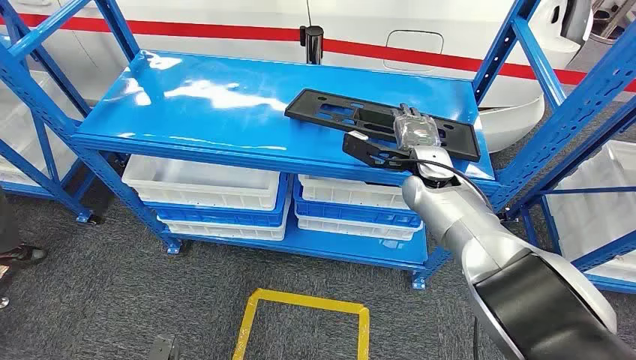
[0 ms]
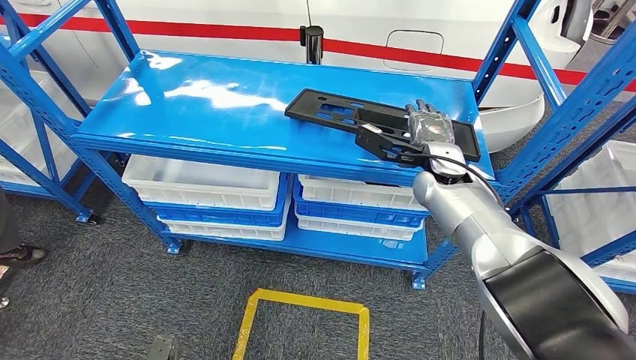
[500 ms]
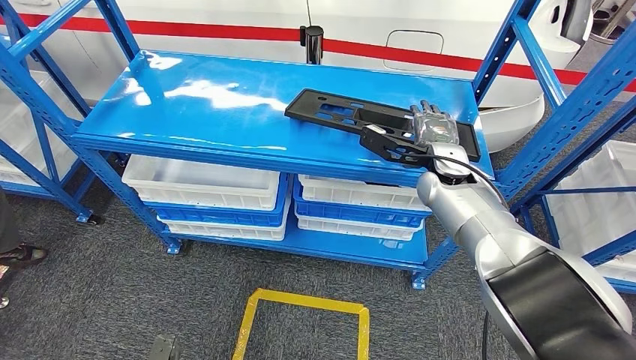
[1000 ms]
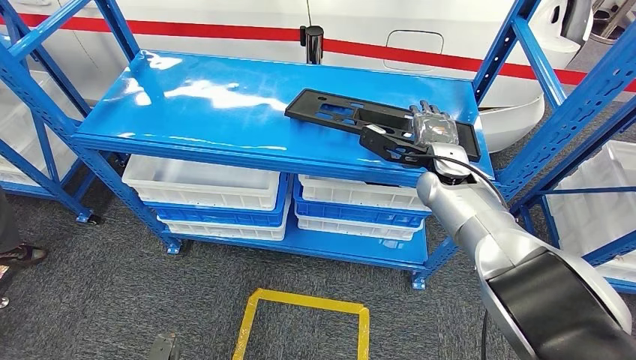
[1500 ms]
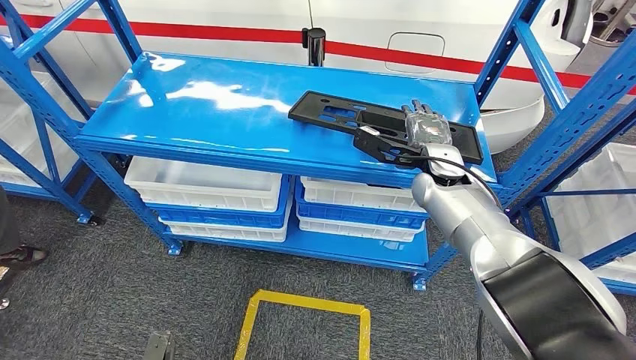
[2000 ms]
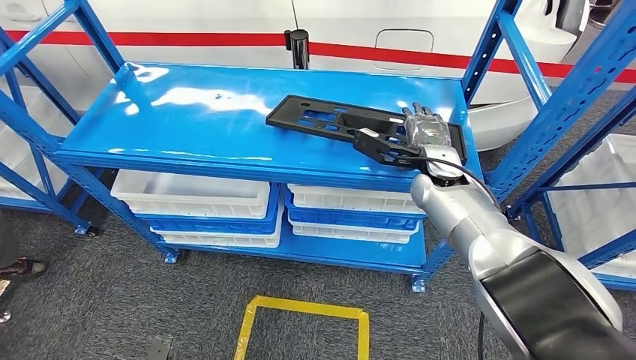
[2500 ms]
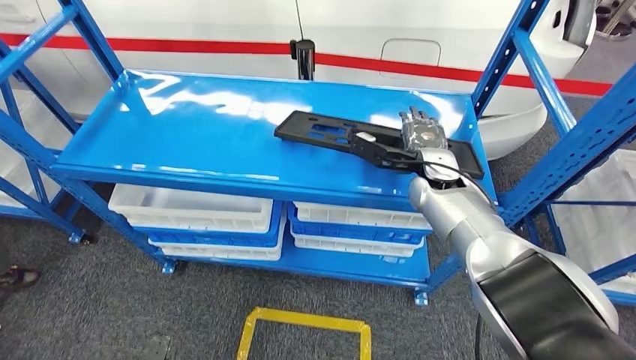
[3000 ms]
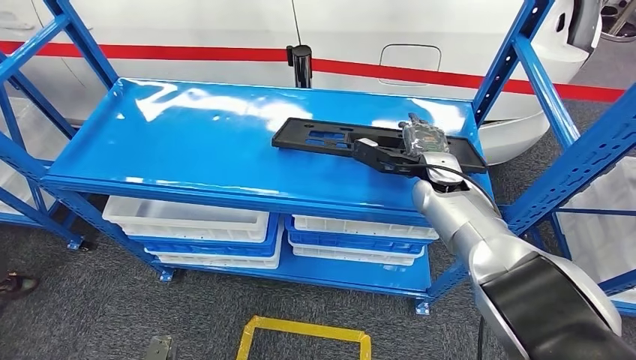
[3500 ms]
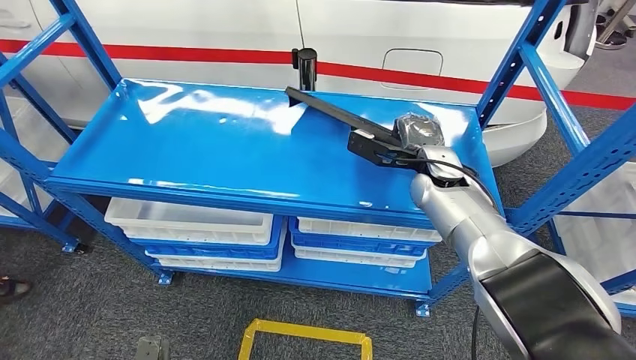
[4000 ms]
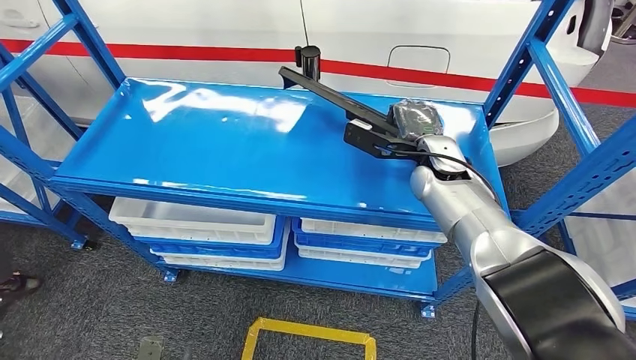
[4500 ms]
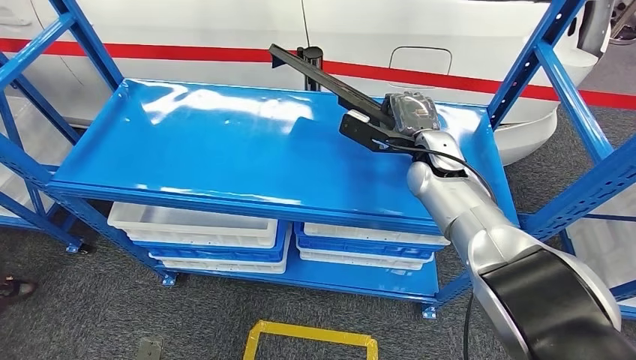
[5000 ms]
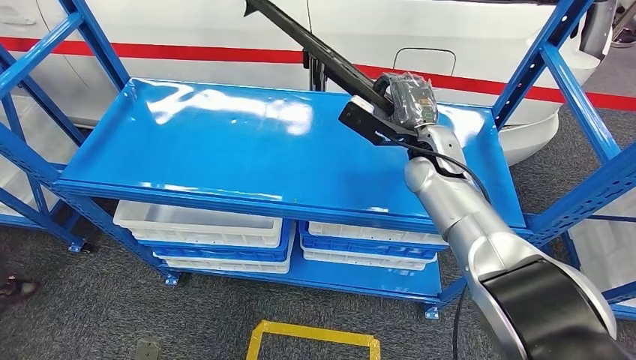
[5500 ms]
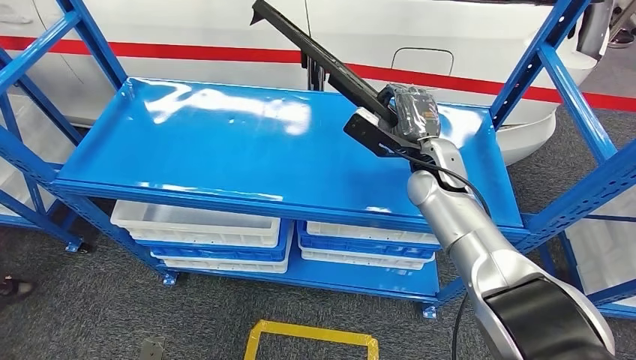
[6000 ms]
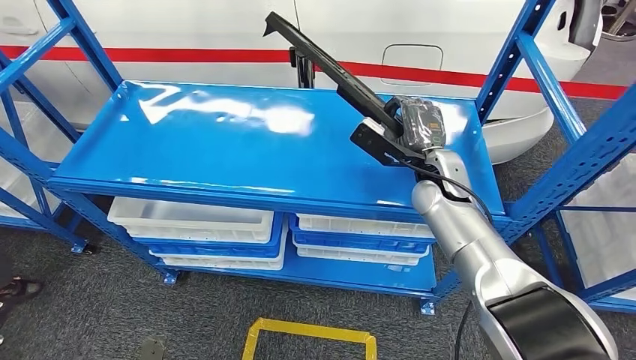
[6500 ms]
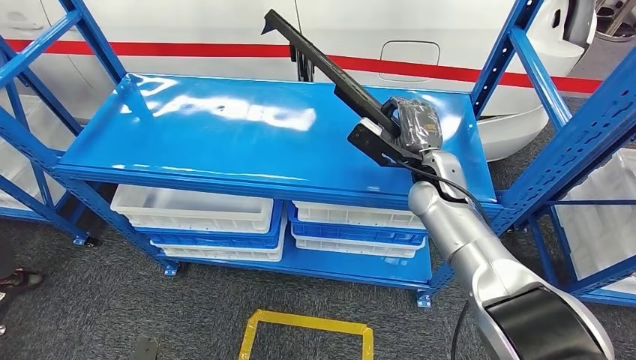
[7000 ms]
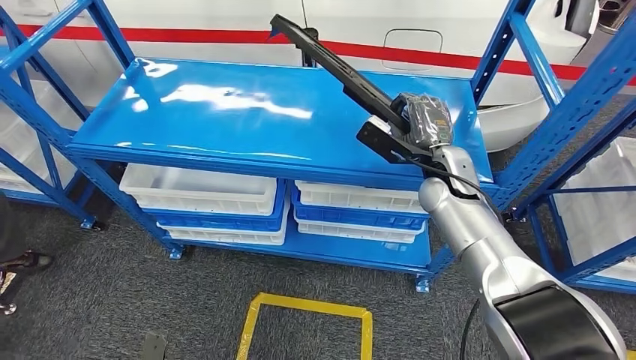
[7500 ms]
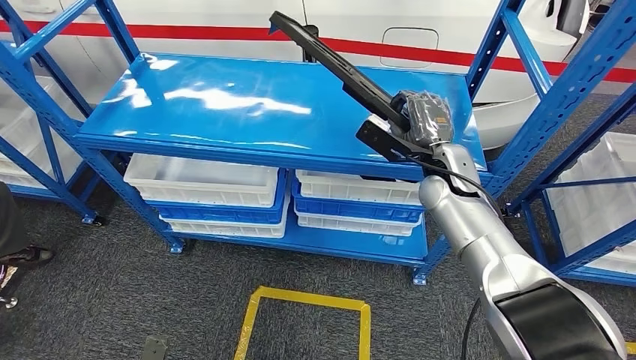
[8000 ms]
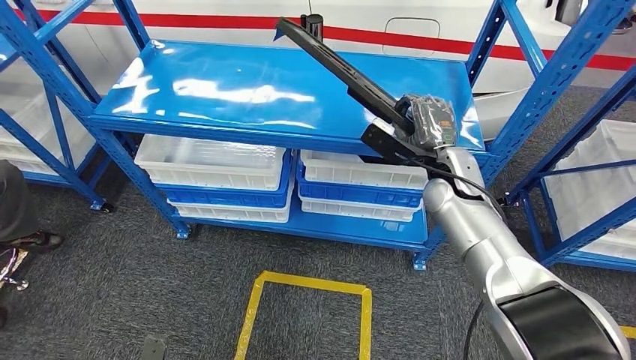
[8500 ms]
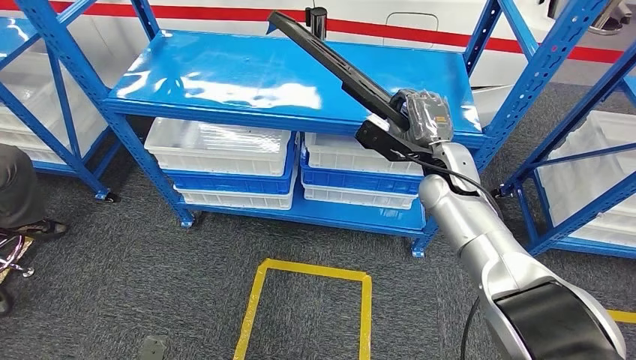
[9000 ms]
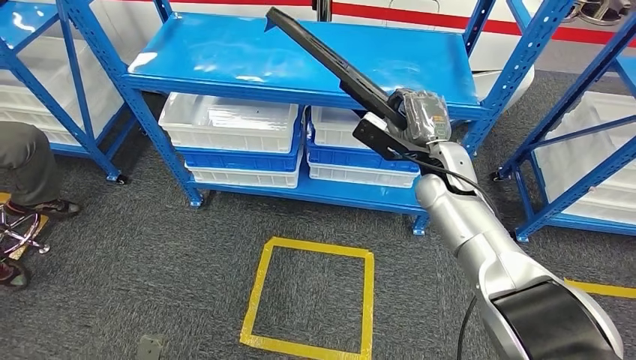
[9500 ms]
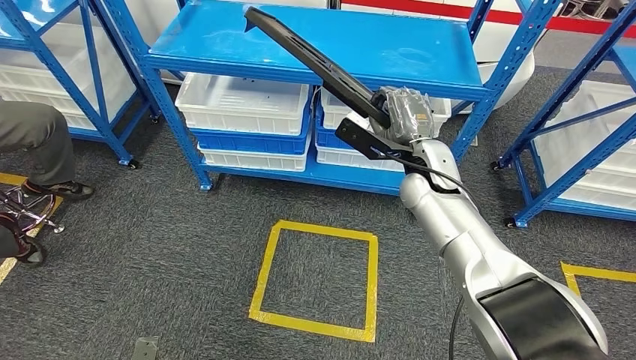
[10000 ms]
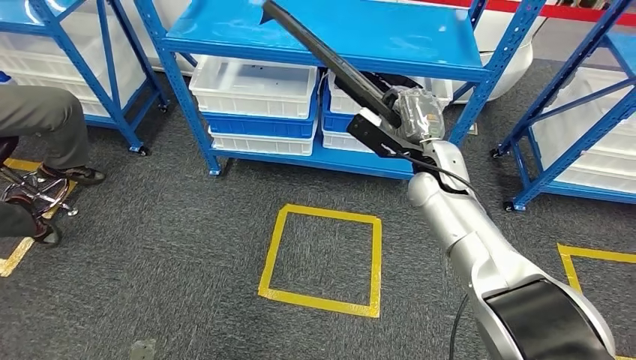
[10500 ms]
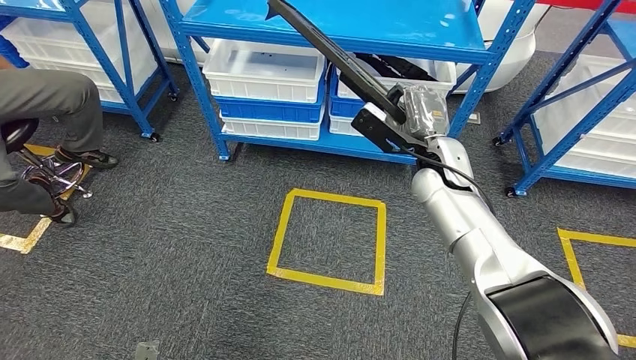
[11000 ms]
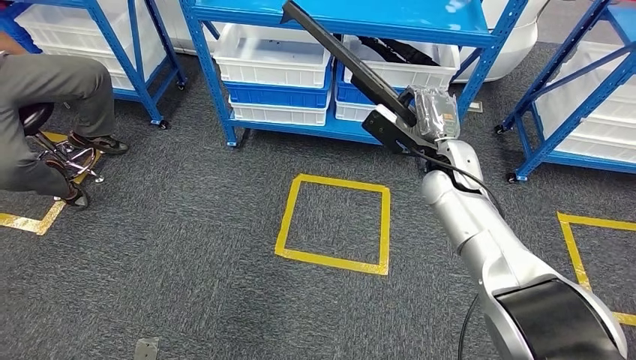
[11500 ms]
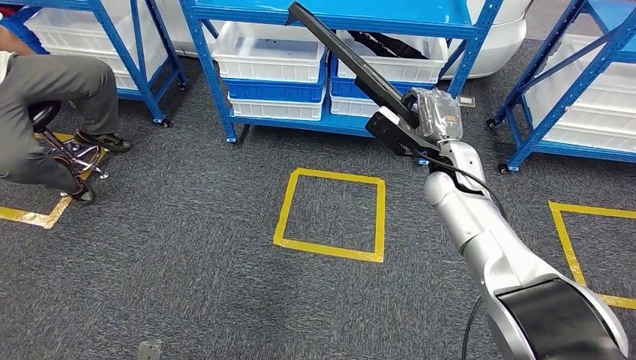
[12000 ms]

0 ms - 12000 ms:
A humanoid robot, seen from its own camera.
Step, 0 ms - 9000 ms: Pick up the large material from the shelf.

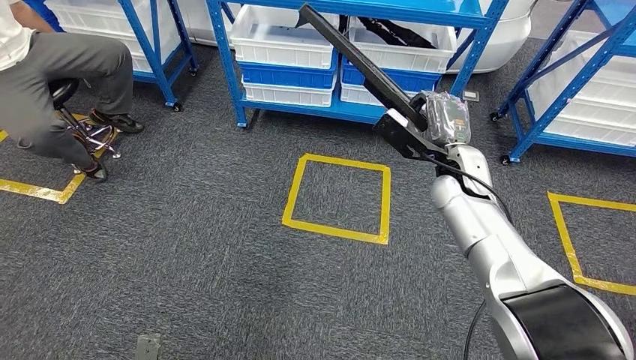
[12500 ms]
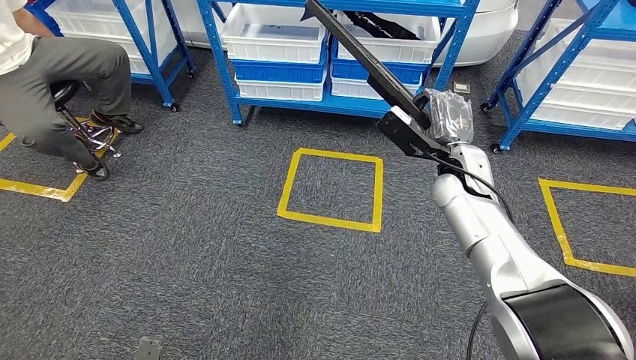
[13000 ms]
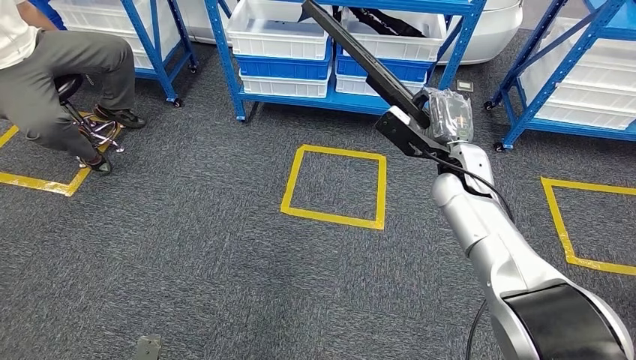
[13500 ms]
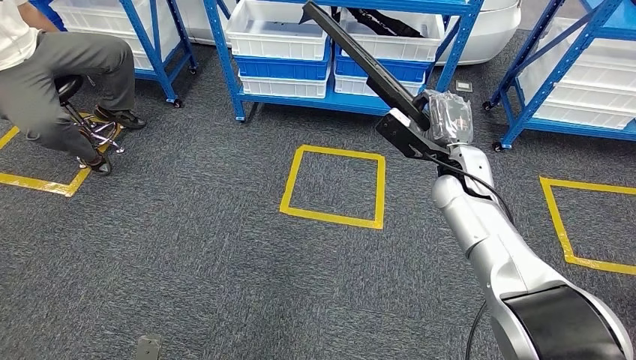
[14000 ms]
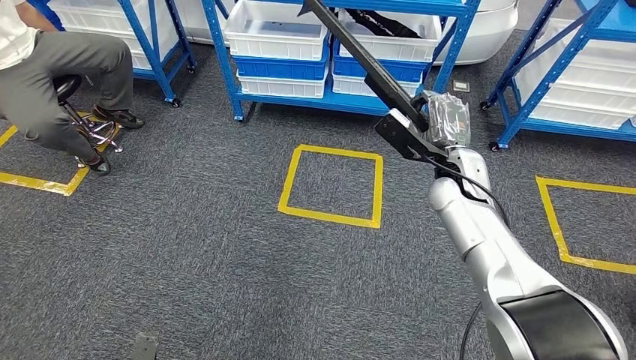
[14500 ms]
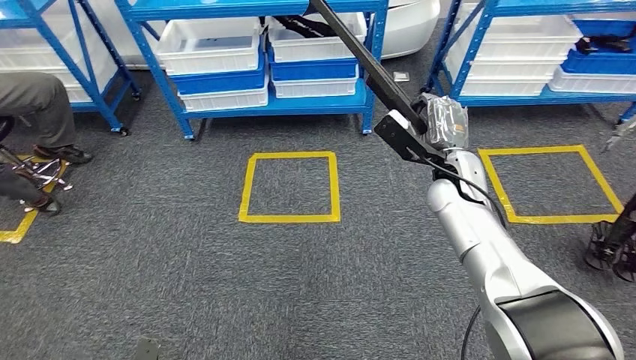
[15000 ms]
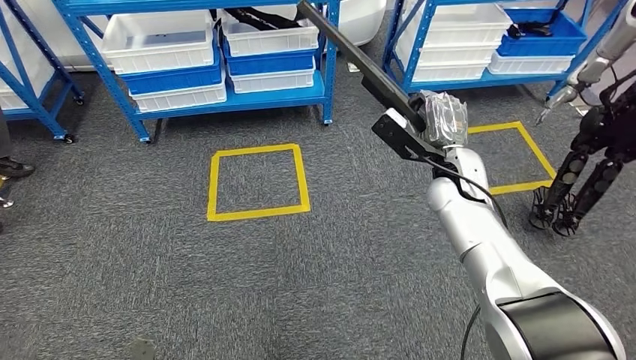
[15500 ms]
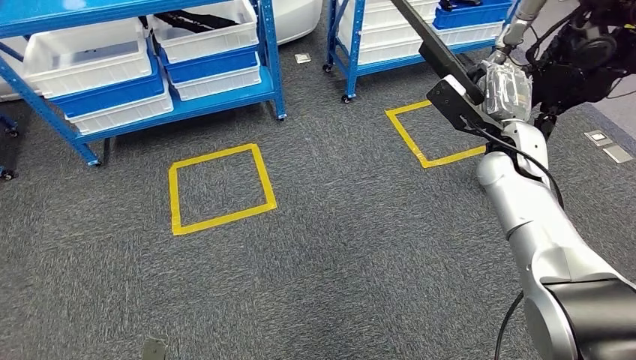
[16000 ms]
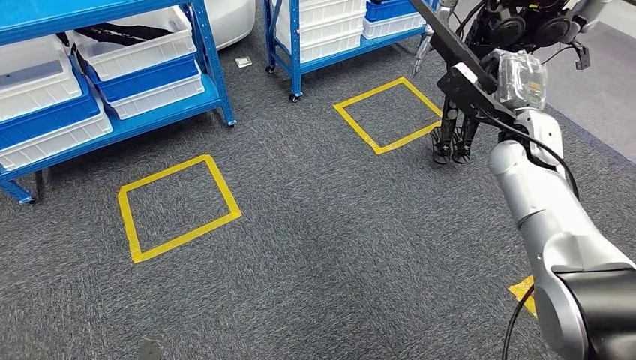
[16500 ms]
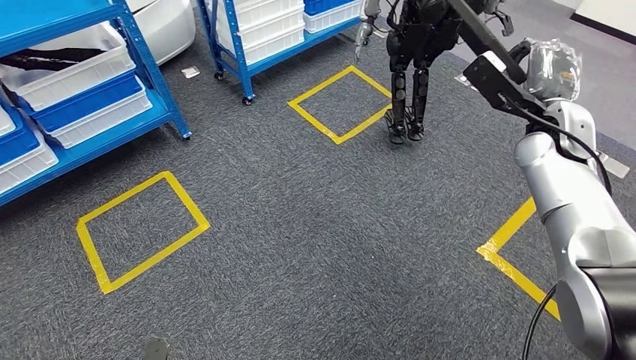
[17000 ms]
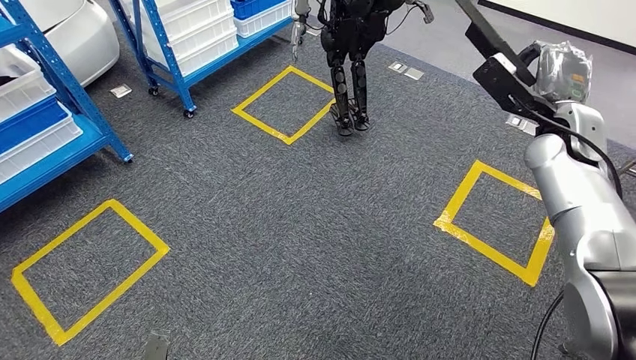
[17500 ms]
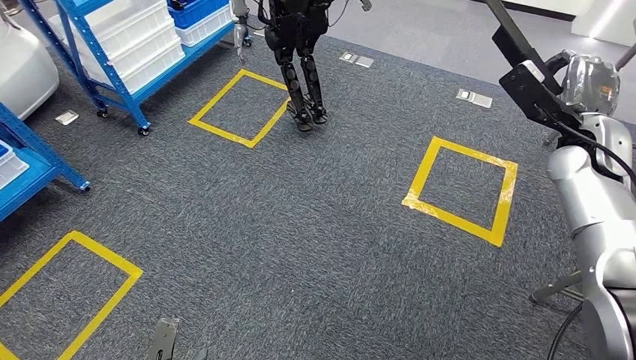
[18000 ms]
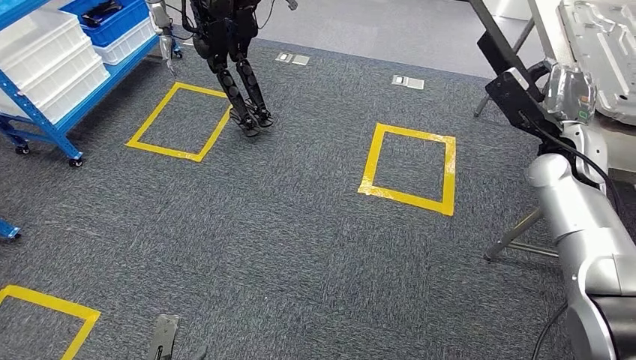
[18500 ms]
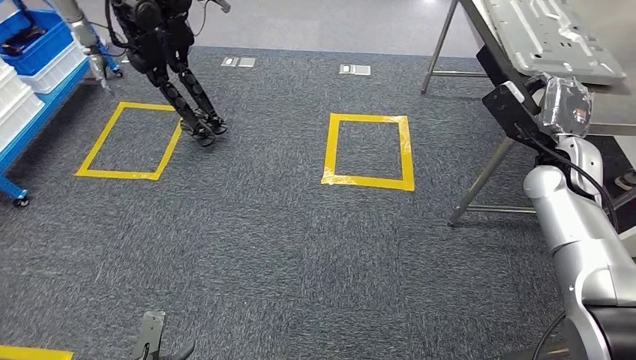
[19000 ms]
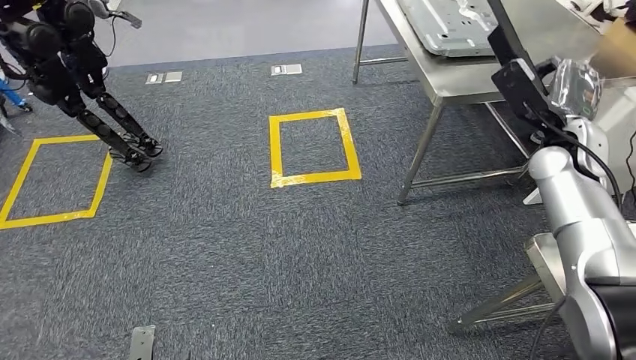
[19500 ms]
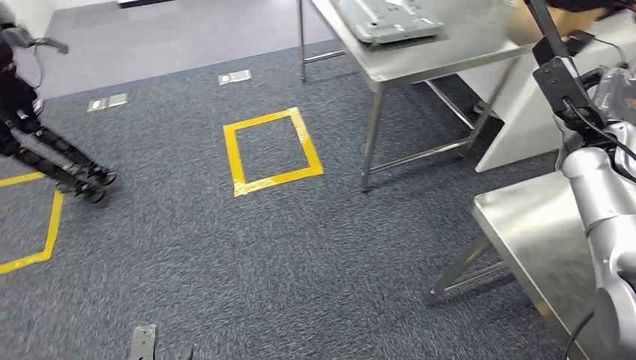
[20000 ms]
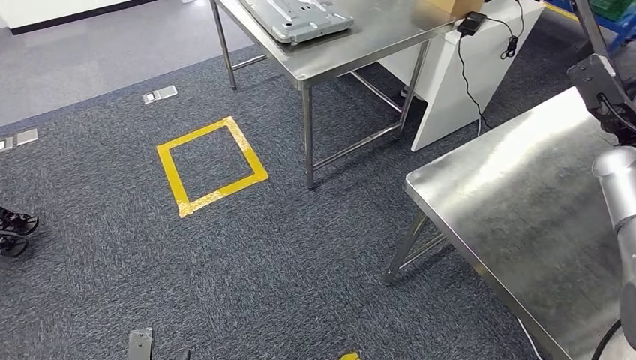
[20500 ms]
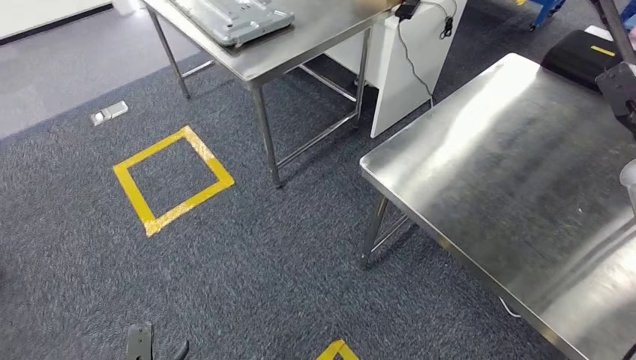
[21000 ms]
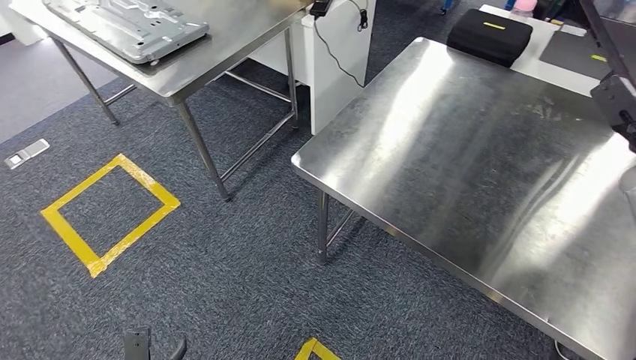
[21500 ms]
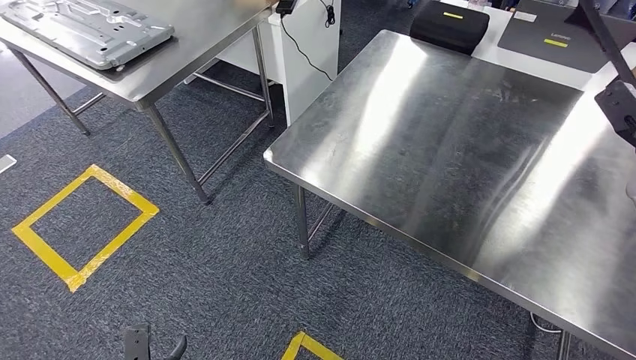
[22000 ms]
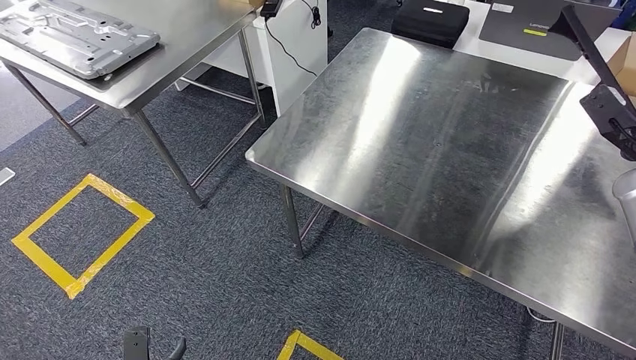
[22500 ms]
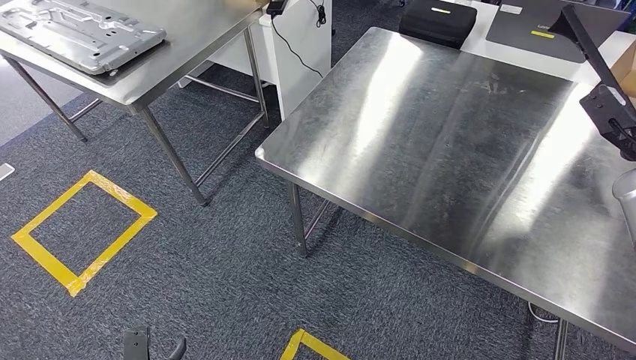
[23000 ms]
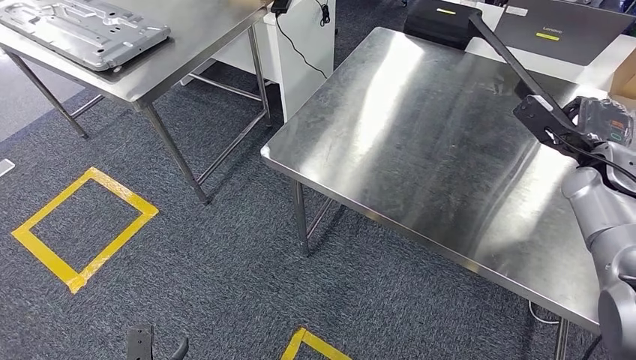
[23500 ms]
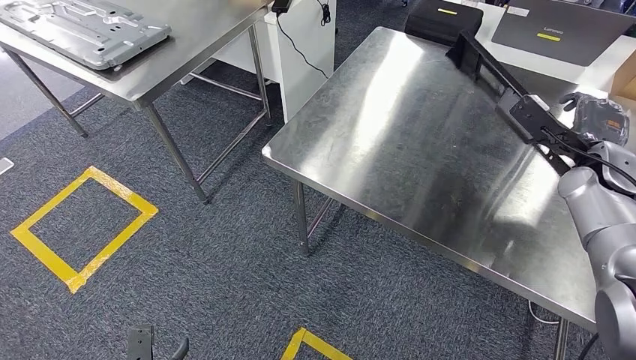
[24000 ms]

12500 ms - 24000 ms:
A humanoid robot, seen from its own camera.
Step, 12500 ms - 23000 ms: Move the large material to the workbench.
